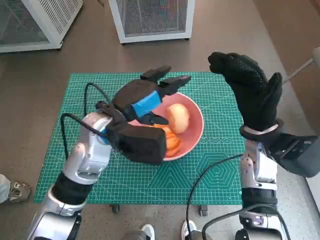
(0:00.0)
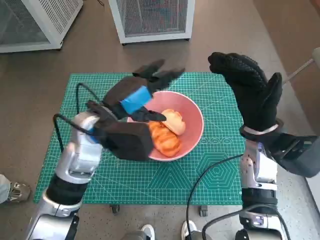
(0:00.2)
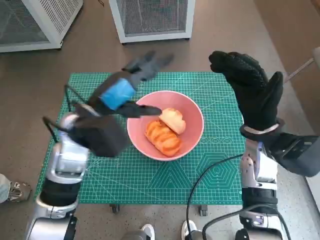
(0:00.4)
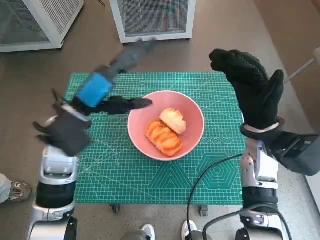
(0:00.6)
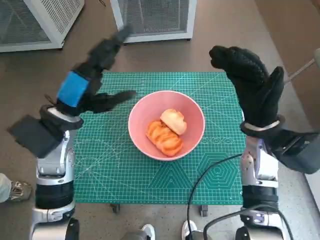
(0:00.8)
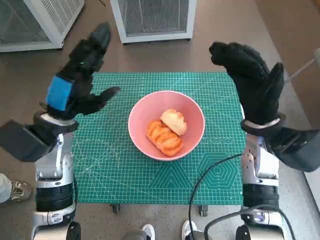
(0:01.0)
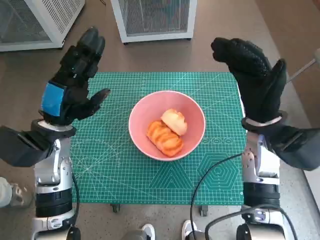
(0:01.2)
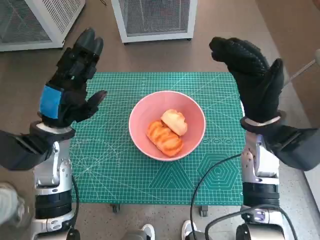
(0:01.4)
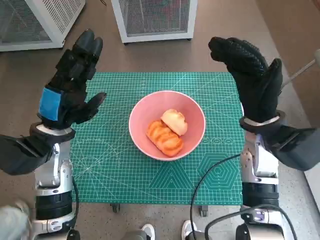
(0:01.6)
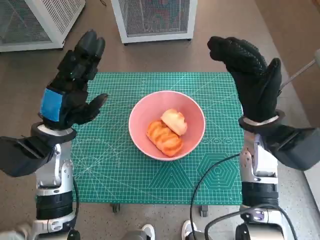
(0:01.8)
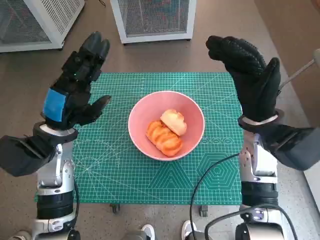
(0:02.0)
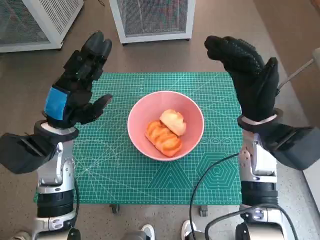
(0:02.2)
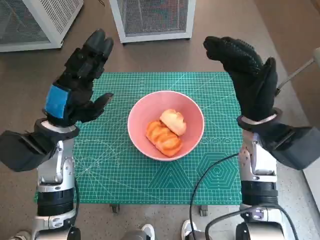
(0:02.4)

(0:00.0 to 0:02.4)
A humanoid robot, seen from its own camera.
Task of the whole recording: Push the bowl into the center of the table and put the bread into the bowl.
0:00.0 - 0:01.2: The left hand goes about 10 cm to the left.
0:01.2 - 0:02.4: Both hands stay about where they are.
